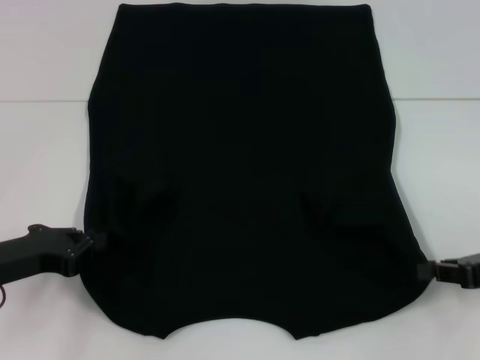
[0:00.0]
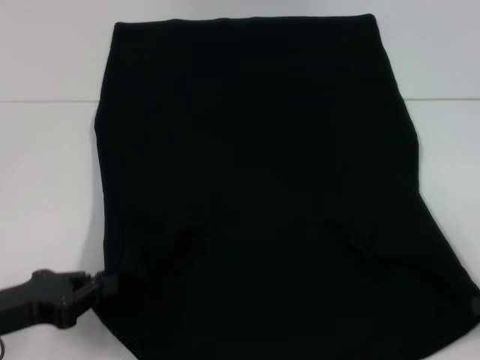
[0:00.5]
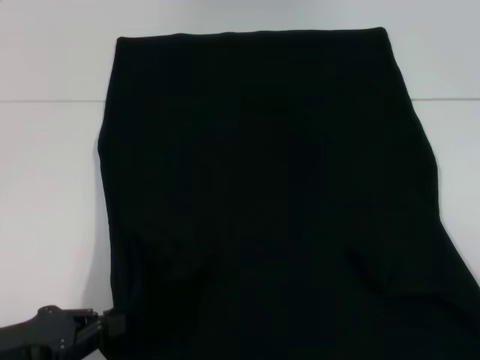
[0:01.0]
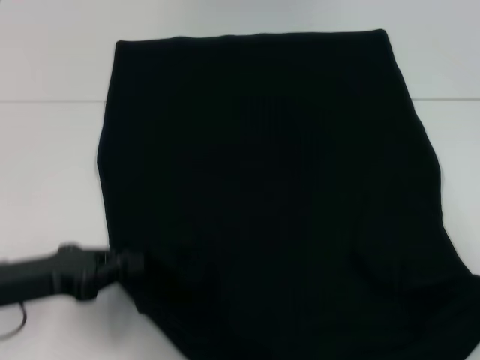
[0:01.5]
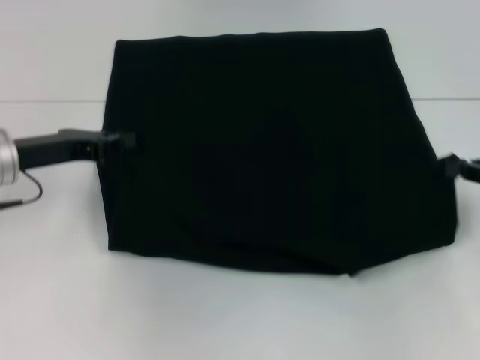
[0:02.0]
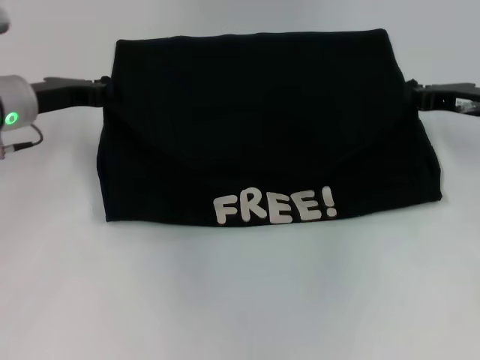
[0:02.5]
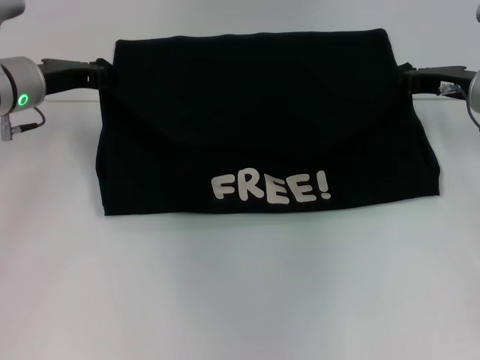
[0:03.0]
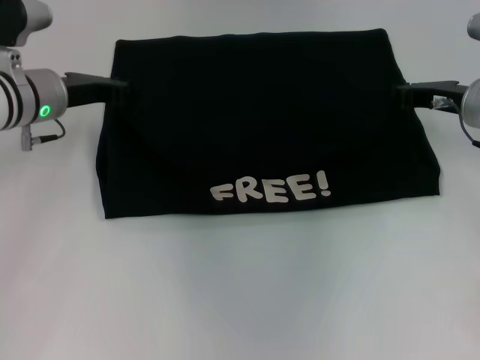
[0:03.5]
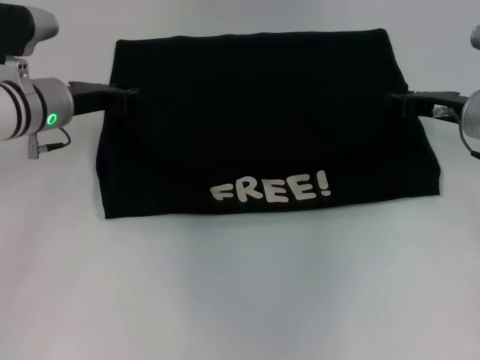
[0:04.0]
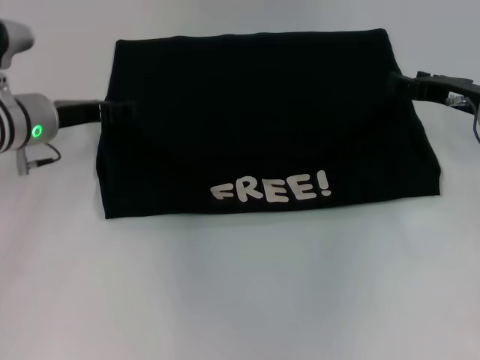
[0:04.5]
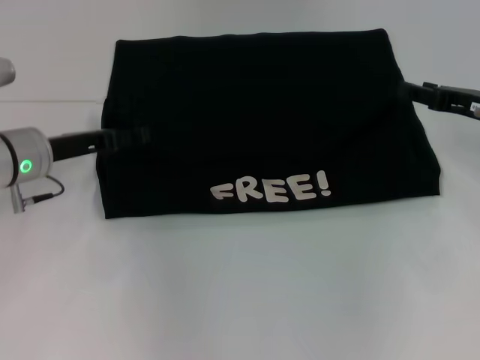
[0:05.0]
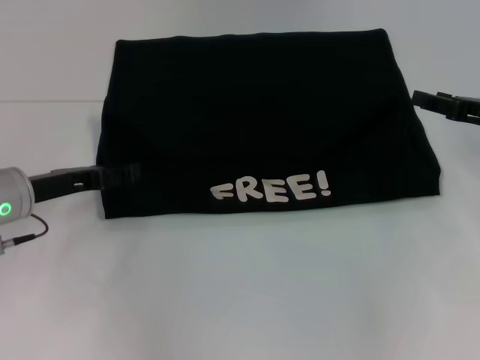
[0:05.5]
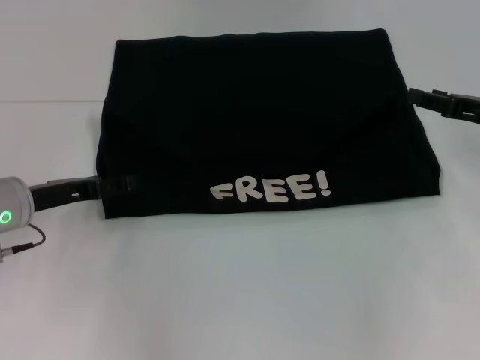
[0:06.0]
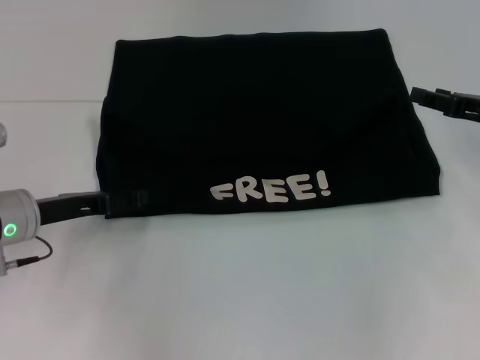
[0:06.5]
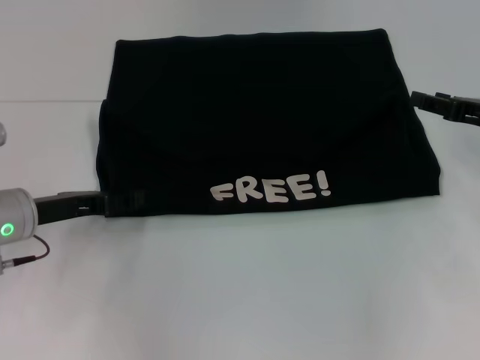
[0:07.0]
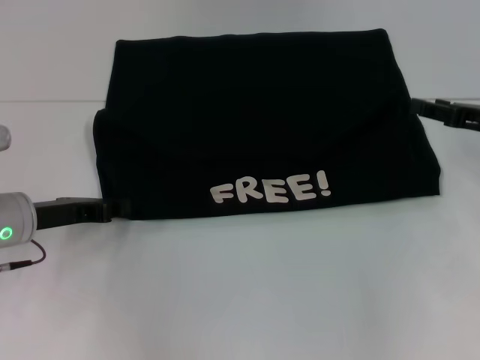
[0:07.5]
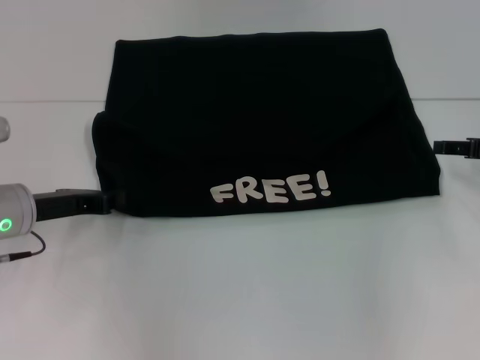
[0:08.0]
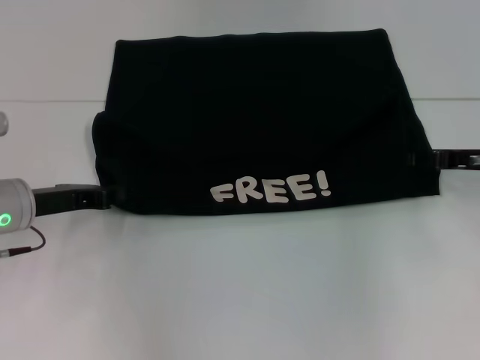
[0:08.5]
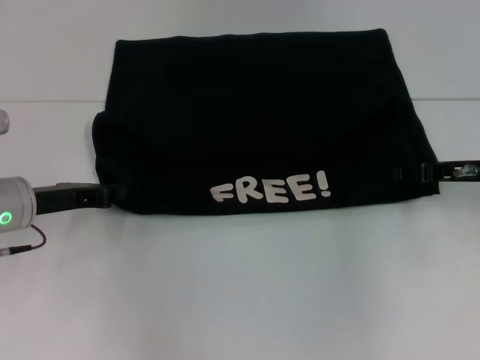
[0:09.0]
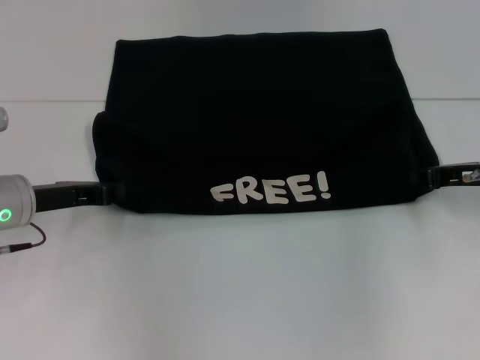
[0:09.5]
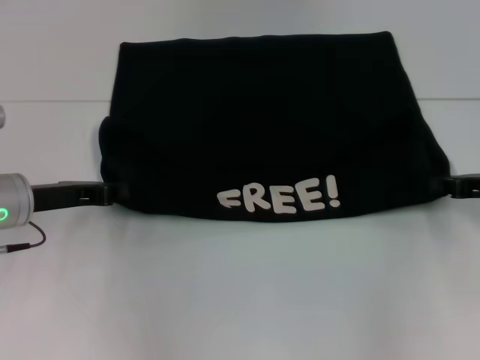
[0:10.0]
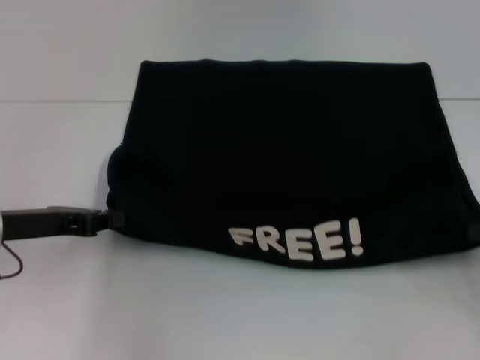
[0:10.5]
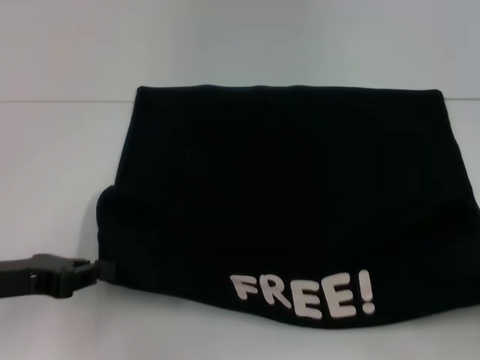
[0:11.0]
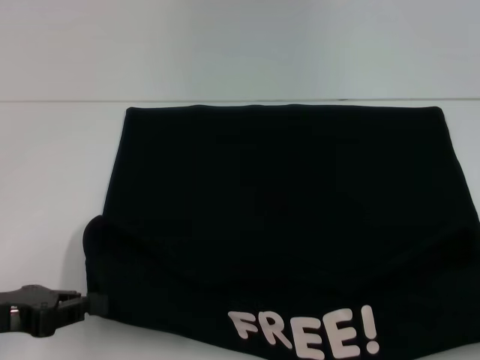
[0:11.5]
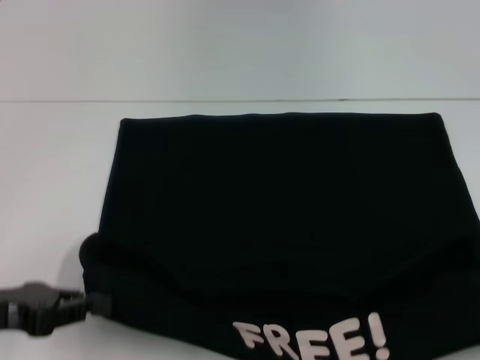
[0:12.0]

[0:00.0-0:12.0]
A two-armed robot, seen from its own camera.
Step, 0:00.0 to 0:04.5: Fold the clothes with your left hand.
Step, 0:00.0 to 0:04.5: Fold the clothes with your right hand.
Step, 0:05.0 to 0:11.5: Pull the clothes with your left hand.
Step, 0:05.0 to 0:11.5: Pull the clothes with your right hand.
0:00.0 to 0:02.0: The right gripper heads forward, covering roughly 5 cm, while the left gripper shifts roughly 10 cm forward and upward.
0:02.0 to 0:04.0: The right gripper moves to the left and forward, approximately 15 cm. The left gripper moves forward, roughly 10 cm.
0:04.0 to 0:06.0: The right gripper shifts approximately 5 cm to the right, and opens its fingers. Meanwhile the left gripper goes approximately 10 cm backward and downward, and opens.
0:06.0 to 0:08.0: The left gripper closes up.
0:08.0 to 0:10.0: The right gripper closes up.
0:10.0 to 0:12.0: The two grippers go approximately 15 cm backward.

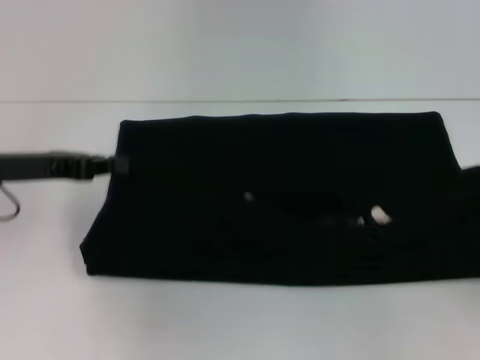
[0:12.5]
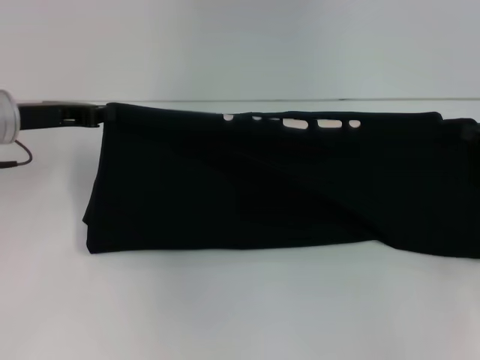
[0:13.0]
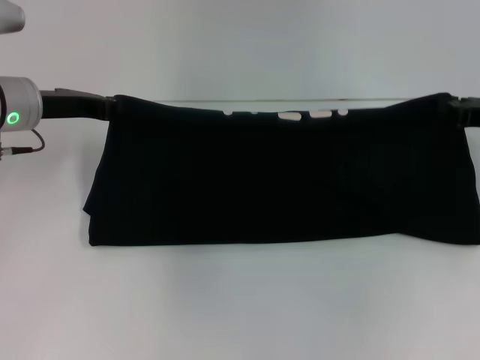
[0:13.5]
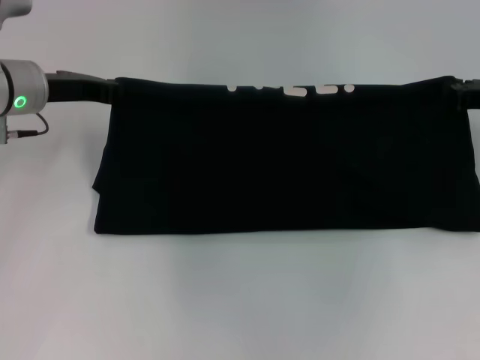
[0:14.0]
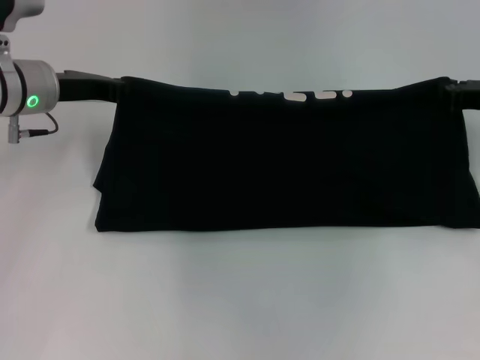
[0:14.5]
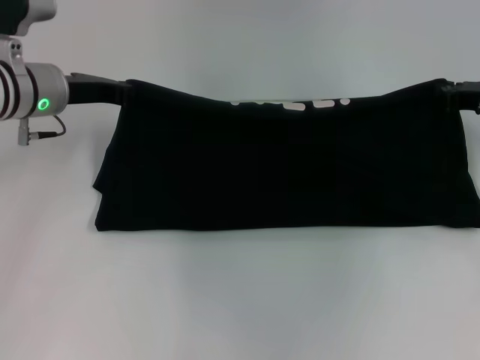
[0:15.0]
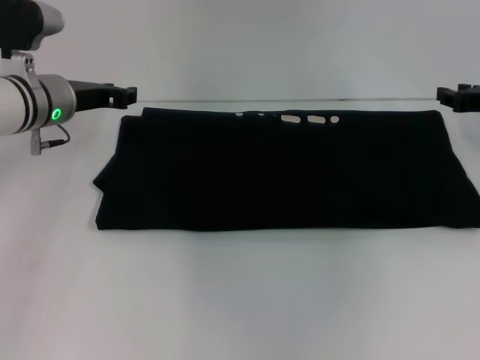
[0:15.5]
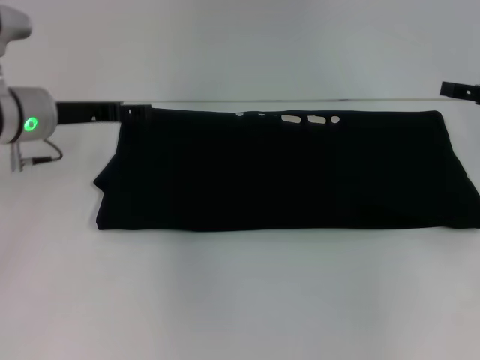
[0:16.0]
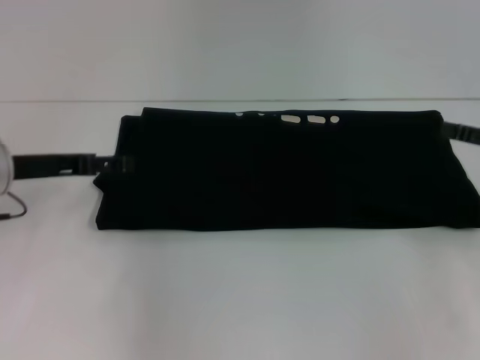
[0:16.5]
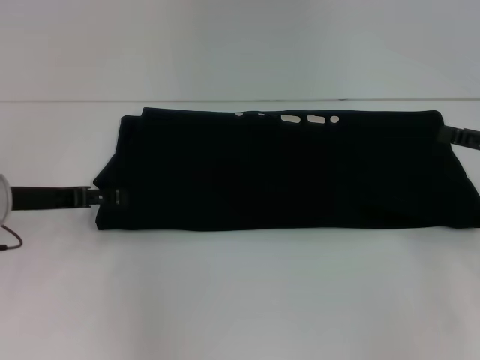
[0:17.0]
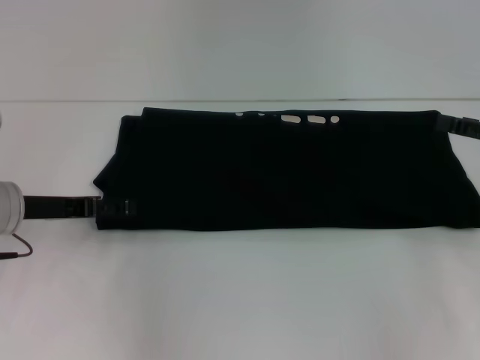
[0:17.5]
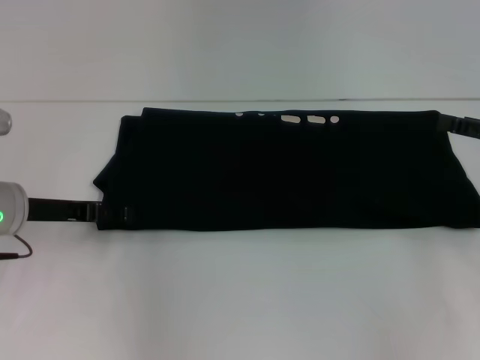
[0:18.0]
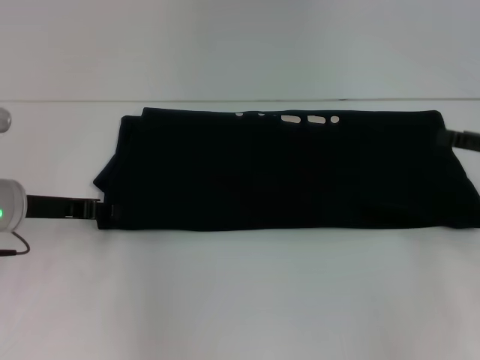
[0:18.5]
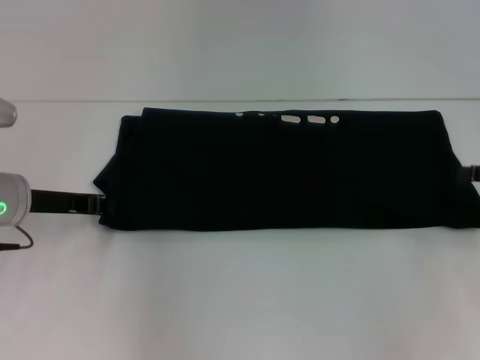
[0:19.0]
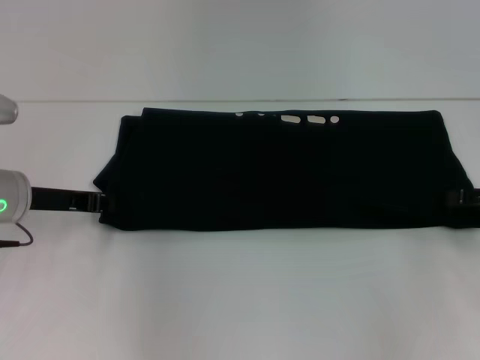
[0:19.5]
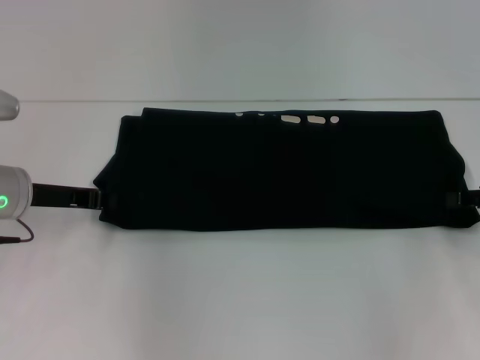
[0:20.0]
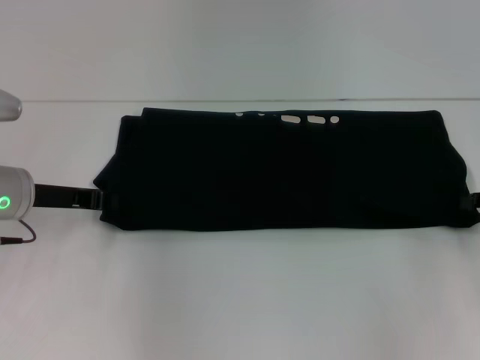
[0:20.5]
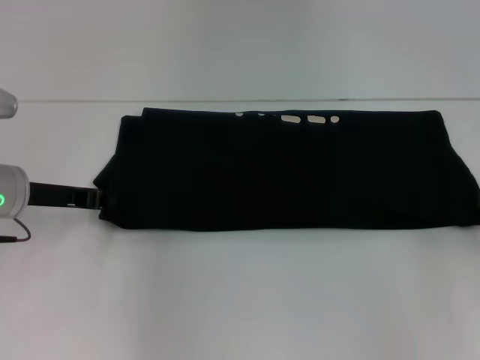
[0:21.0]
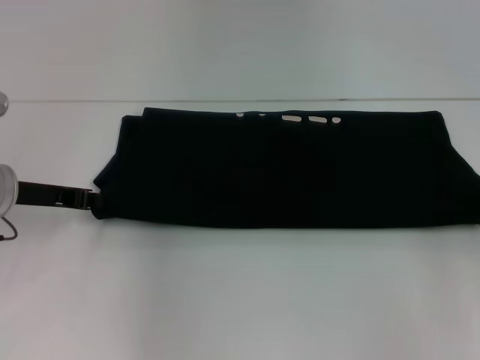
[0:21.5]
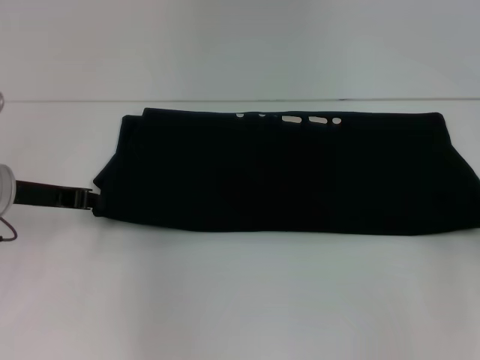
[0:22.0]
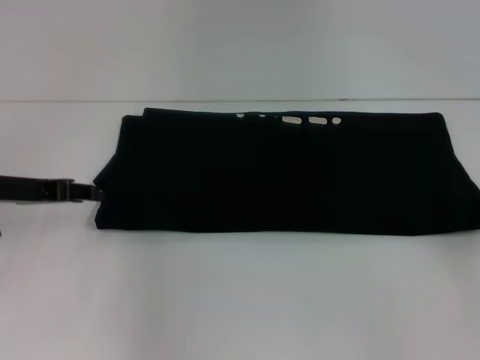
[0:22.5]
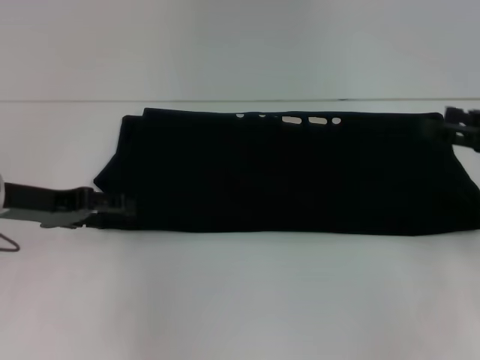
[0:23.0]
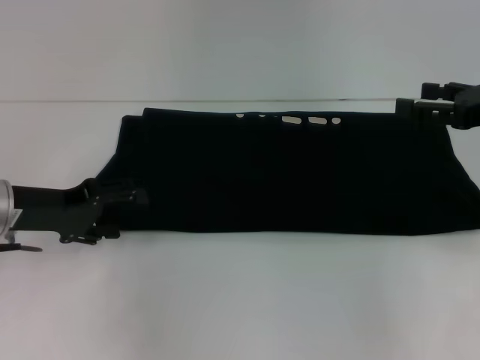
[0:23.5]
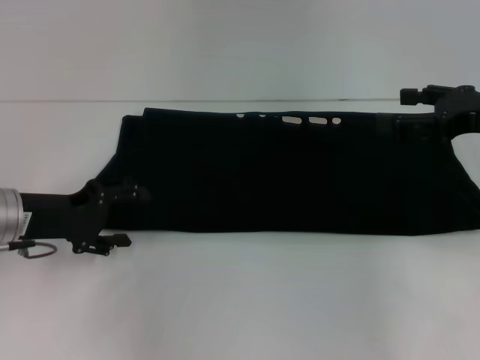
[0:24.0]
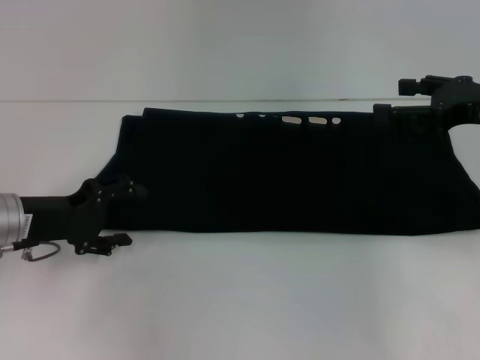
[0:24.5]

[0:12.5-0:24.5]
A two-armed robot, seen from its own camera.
Step, 0:12.5 to 0:15.5: Fold the clothes with your right hand.
0:12.5 to 0:14.5: The left gripper goes roughly 10 cm forward, while the right gripper shifts about 15 cm forward and to the left.
0:14.5 to 0:16.5: Both grippers move backward, approximately 10 cm. The right gripper opens its fingers; the left gripper opens its fingers.
0:16.5 to 0:18.5: The left gripper closes up.
0:18.5 to 0:20.5: The left gripper closes its fingers.
0:20.5 to 0:22.5: The right gripper ends up some 5 cm from where it was.
0:22.5 to 0:24.5: The right gripper moves to the left and forward, roughly 15 cm, and opens up, while the left gripper opens up.

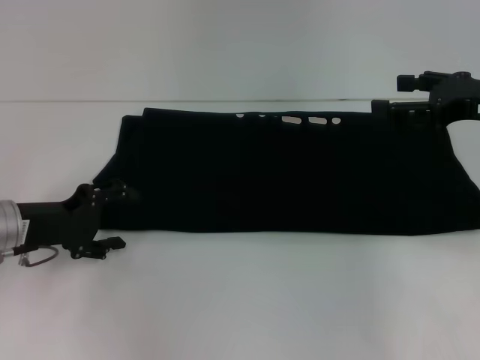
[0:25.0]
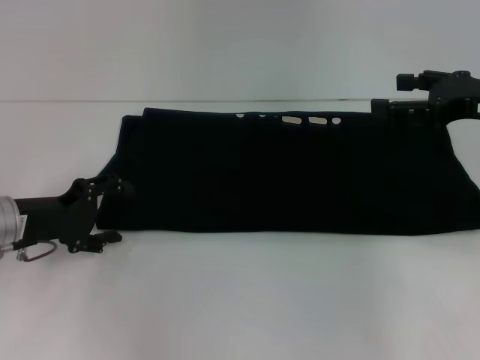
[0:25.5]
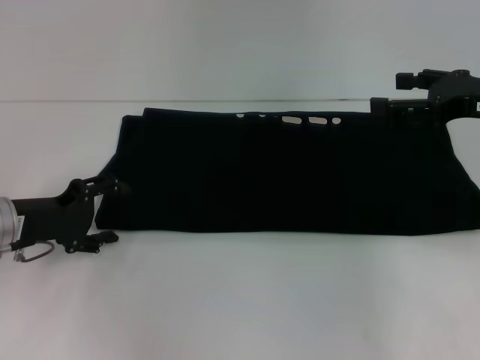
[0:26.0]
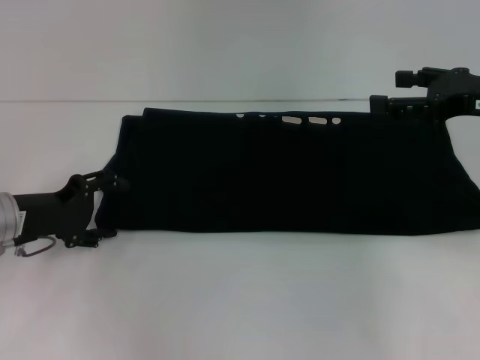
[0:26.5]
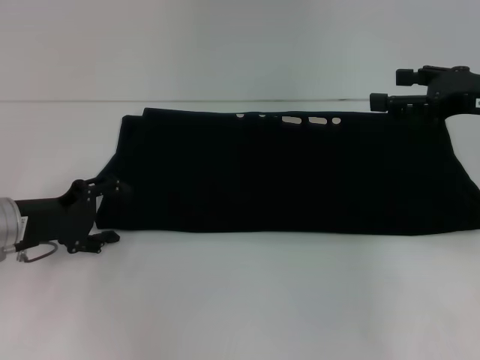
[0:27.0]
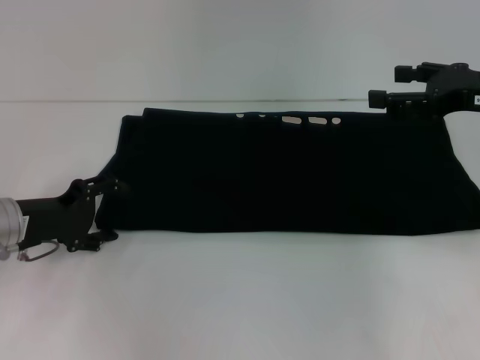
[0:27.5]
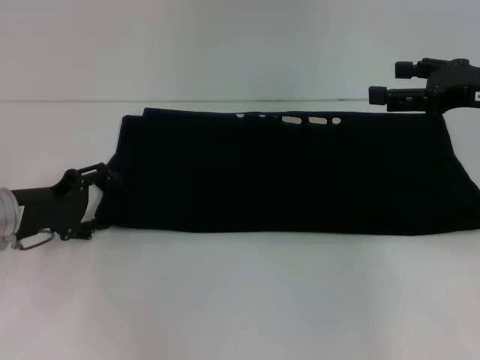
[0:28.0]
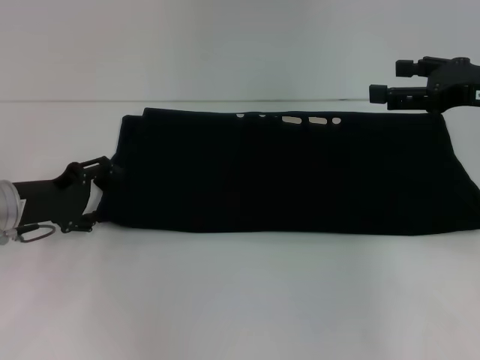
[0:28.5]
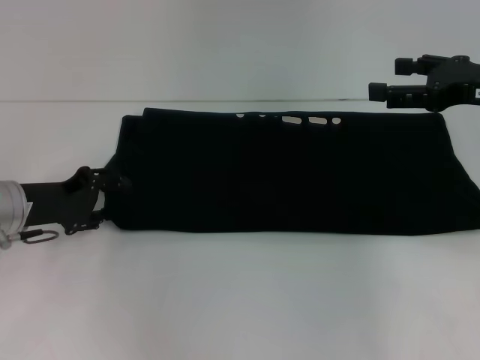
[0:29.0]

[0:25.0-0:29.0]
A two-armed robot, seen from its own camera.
0:25.0 to 0:27.0: Both grippers stay about where they are.
0:27.0 to 0:29.0: The grippers make only small movements.
